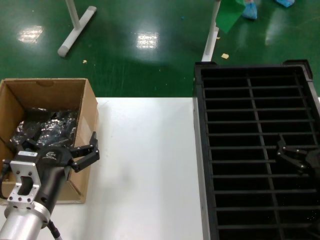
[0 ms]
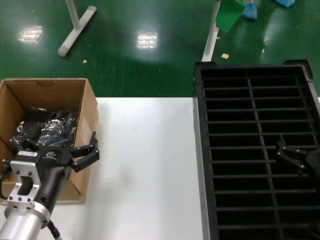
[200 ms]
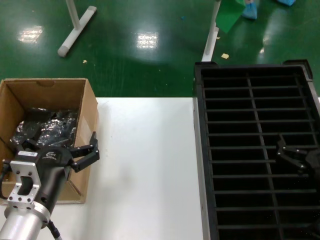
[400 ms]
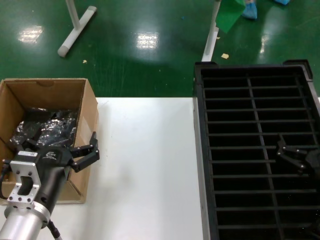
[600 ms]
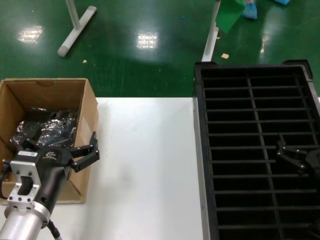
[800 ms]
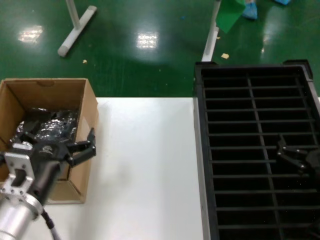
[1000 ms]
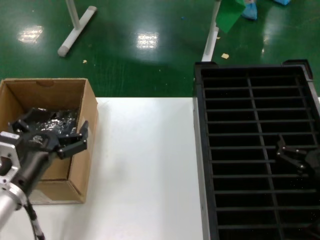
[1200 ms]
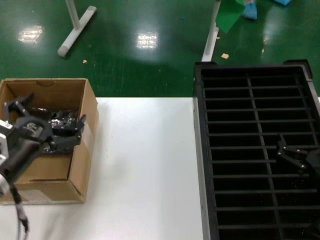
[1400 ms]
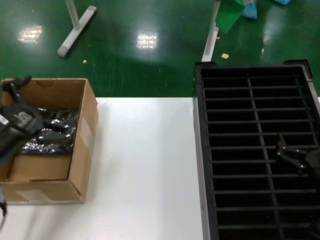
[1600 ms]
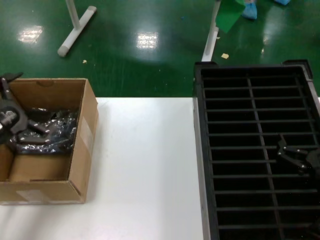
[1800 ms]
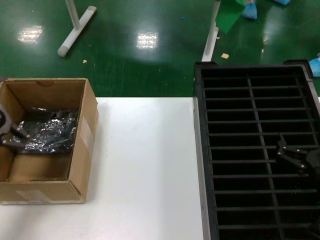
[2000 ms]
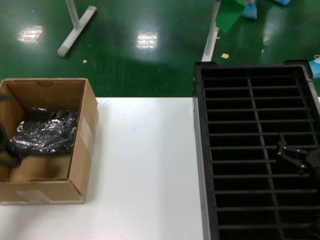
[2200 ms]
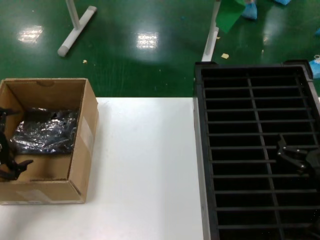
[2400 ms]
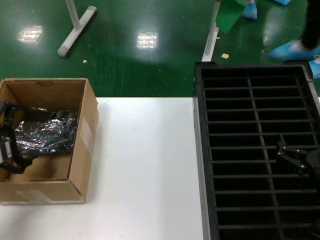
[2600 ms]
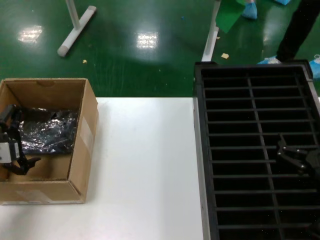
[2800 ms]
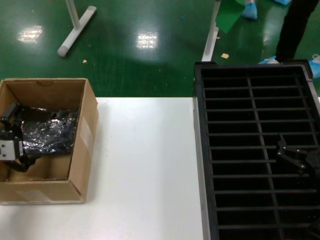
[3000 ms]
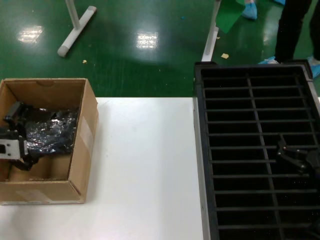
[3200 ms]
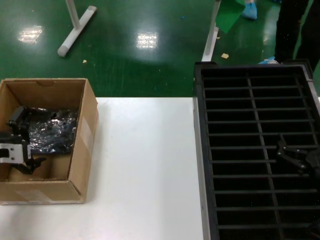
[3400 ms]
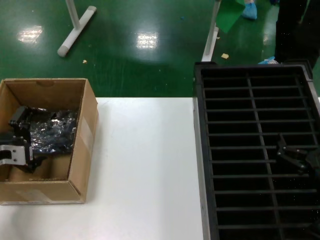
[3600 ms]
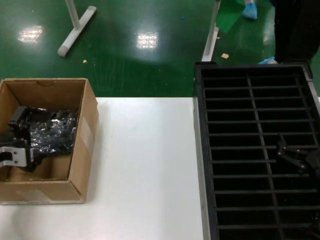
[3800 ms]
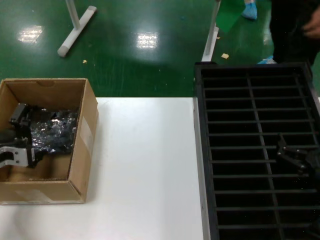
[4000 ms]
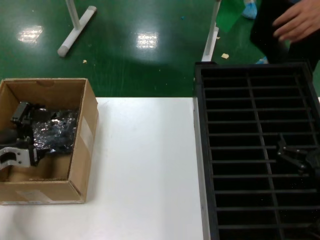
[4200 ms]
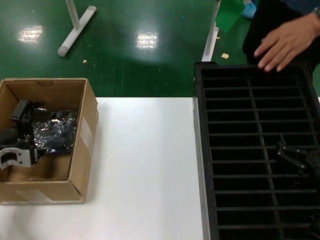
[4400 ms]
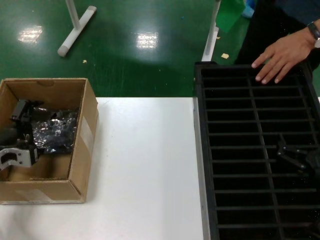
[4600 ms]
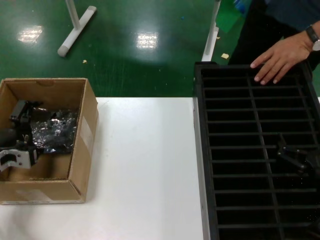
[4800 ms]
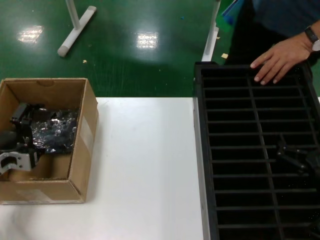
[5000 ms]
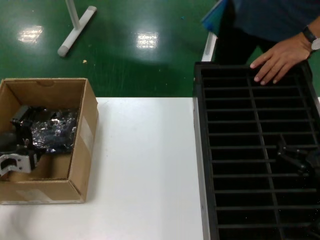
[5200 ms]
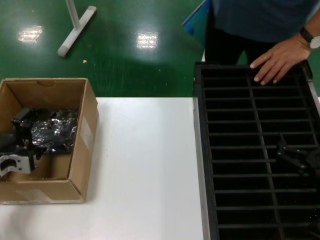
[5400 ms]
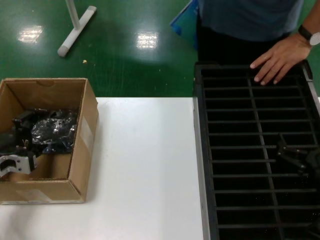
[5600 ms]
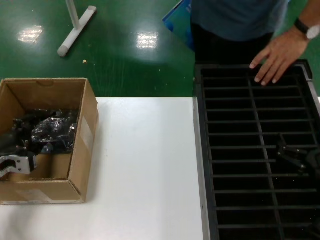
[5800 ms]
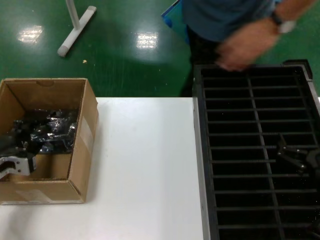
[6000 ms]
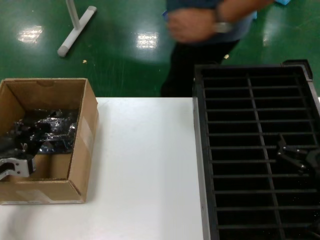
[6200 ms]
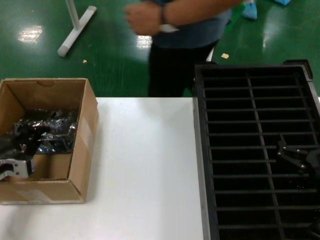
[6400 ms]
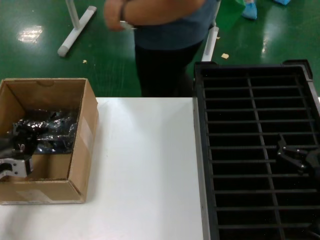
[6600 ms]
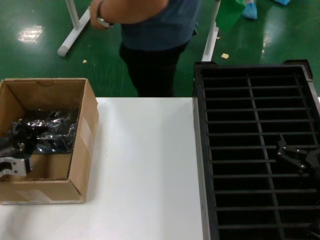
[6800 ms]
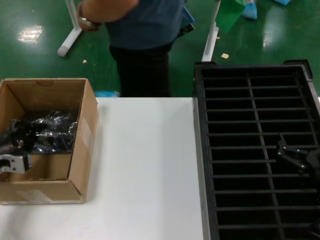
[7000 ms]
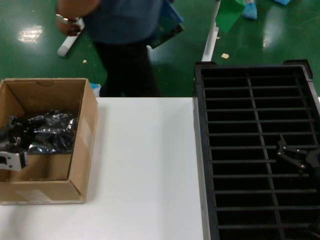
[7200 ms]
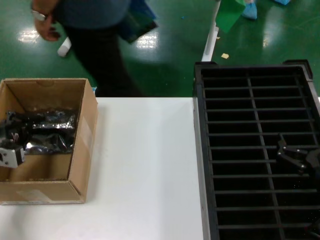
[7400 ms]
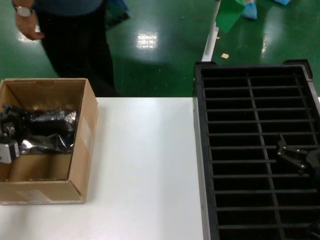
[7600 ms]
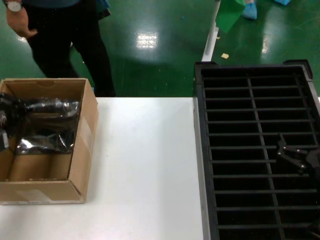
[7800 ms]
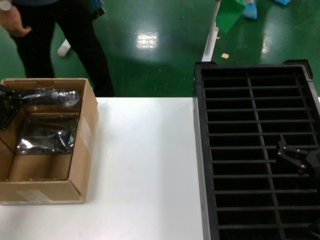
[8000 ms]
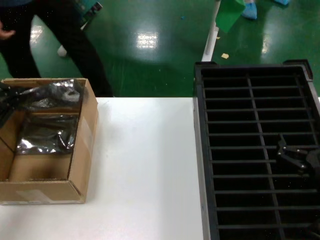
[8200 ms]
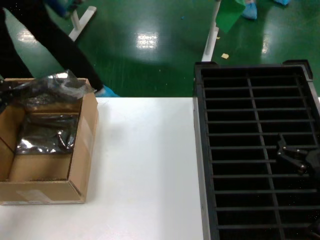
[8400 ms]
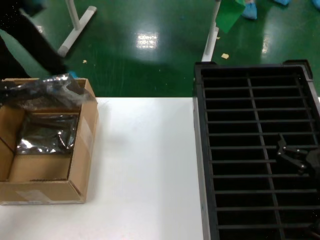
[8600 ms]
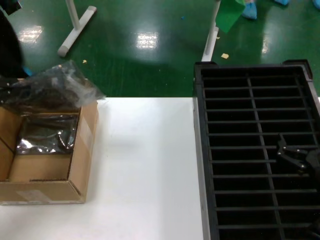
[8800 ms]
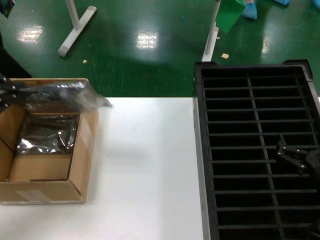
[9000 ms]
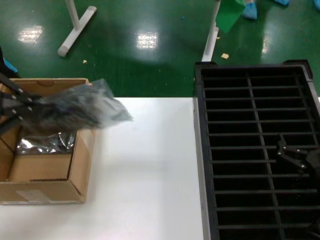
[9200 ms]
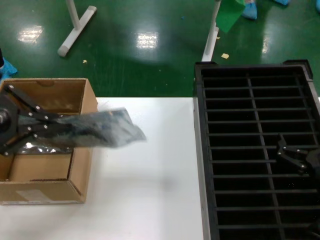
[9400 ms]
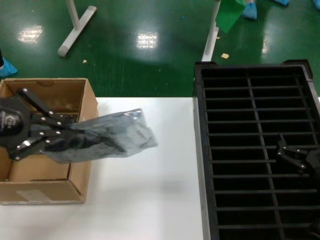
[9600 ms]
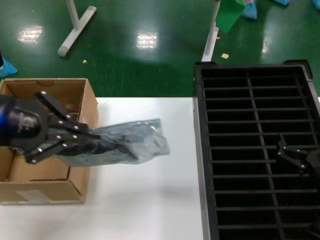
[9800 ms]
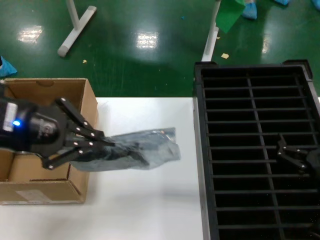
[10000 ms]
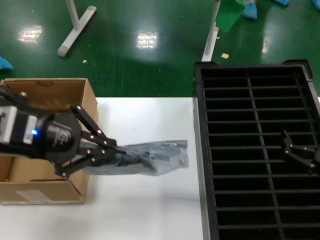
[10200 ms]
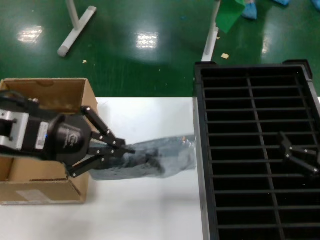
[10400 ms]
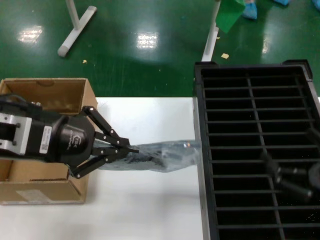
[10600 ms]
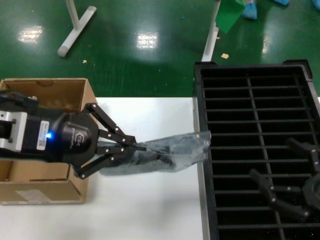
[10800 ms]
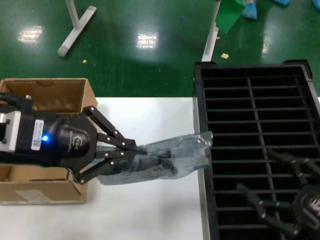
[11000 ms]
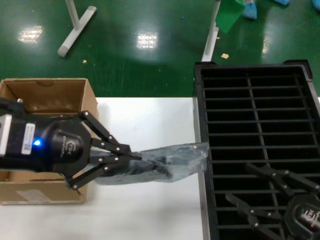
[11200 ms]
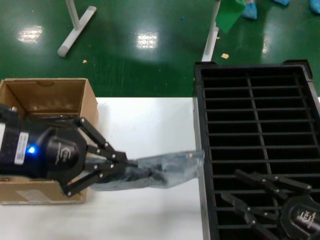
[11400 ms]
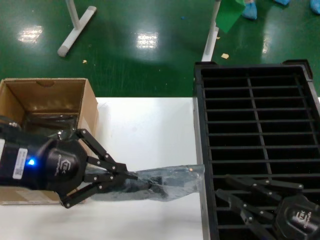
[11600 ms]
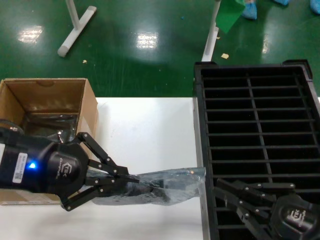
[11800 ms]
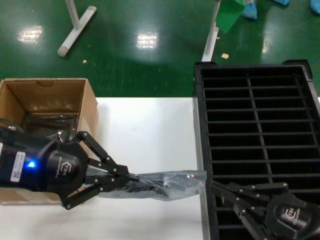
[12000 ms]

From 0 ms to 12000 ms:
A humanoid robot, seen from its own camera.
Task of the whole recording: take out graphics card from box remove packaging put into black container.
Step, from 0 ms to 6800 ms: Grasp the bag.
Step, from 7000 ms to 10200 ms: Lift the bag.
From 0 ms to 1600 ms: The left hand heads to the left and upward, covering about 15 cm.
From 1600 ms to 3000 ms: The left hand is displaced forward and to the left by about 10 cm.
From 3000 ms to 4400 ms: The left hand ends up about 5 cm from where it was.
From 4400 ms to 6000 ms: The hands move only a little.
From 6000 ms to 7600 ms: The left hand shifts about 5 cm upward.
From 7600 ms to 9000 ms: The left hand is displaced upward and backward by some 20 cm.
From 9000 ms to 10400 ms: The right hand moves some 5 cm. Meanwhile the left hand heads to the right, covering approximately 15 cm.

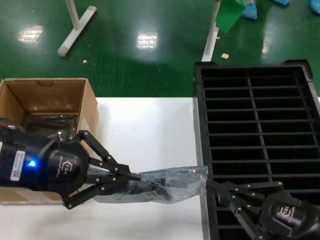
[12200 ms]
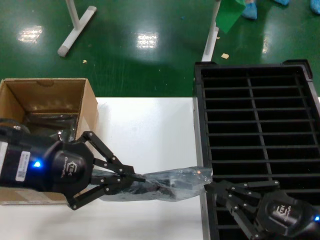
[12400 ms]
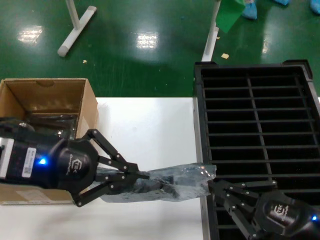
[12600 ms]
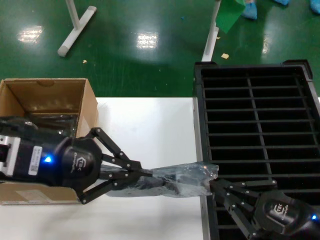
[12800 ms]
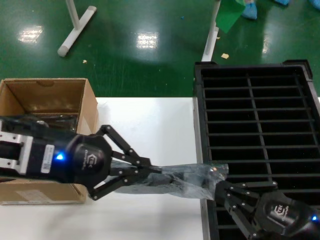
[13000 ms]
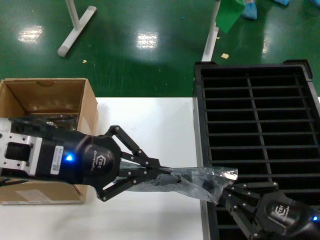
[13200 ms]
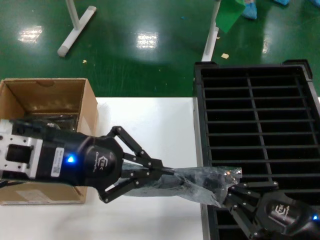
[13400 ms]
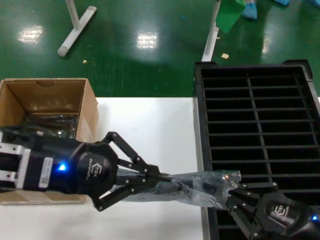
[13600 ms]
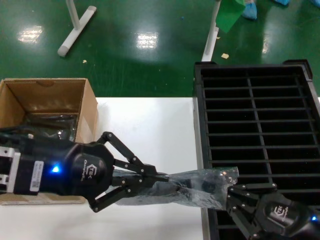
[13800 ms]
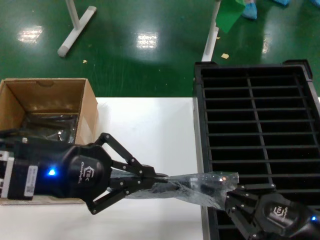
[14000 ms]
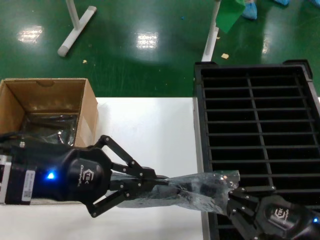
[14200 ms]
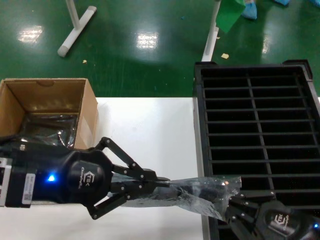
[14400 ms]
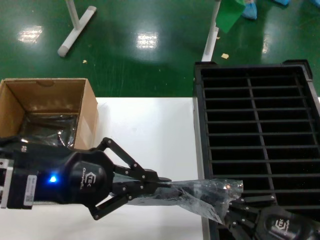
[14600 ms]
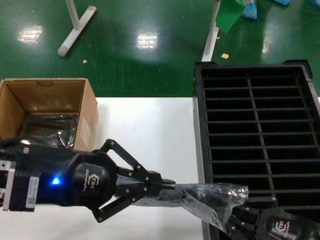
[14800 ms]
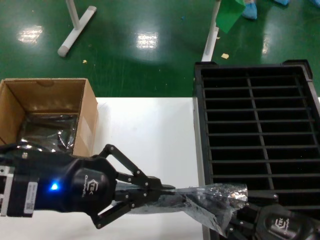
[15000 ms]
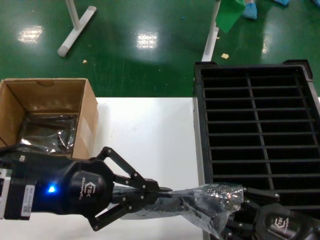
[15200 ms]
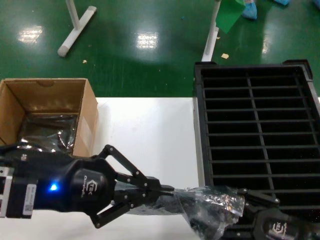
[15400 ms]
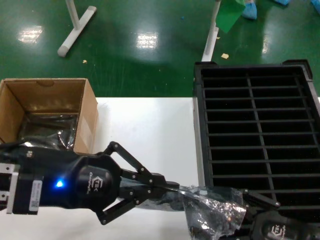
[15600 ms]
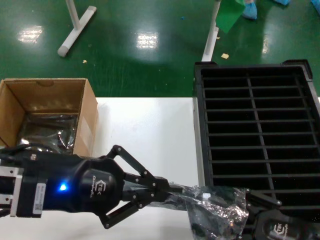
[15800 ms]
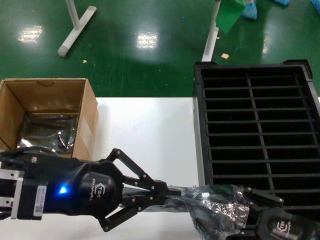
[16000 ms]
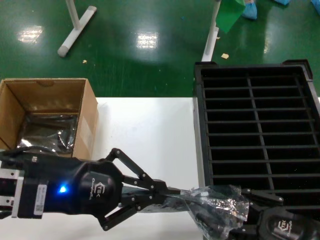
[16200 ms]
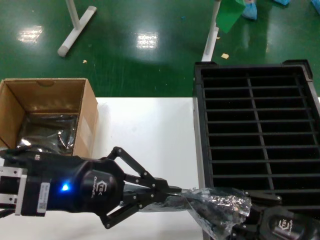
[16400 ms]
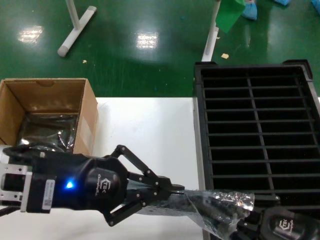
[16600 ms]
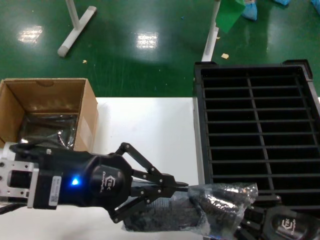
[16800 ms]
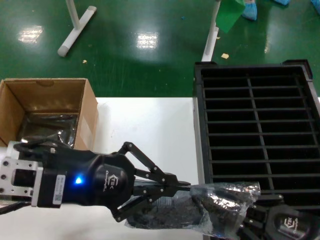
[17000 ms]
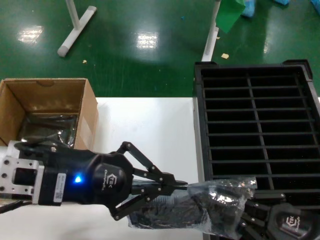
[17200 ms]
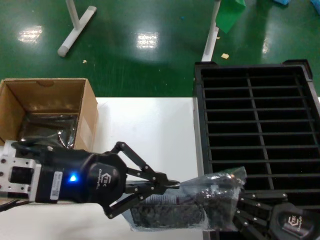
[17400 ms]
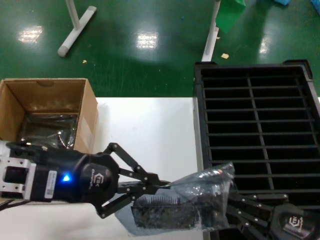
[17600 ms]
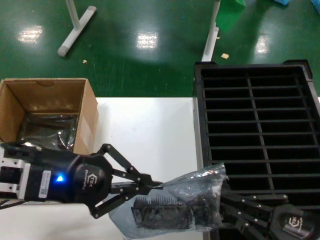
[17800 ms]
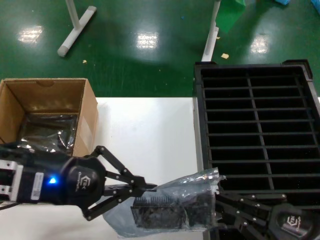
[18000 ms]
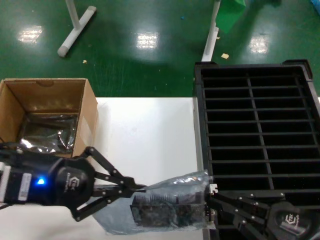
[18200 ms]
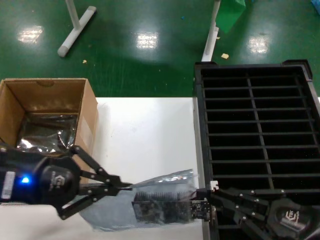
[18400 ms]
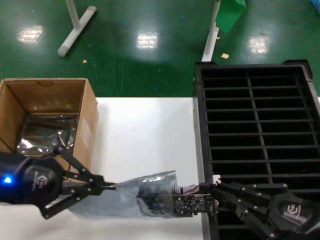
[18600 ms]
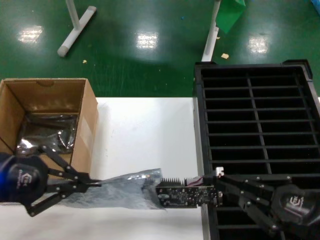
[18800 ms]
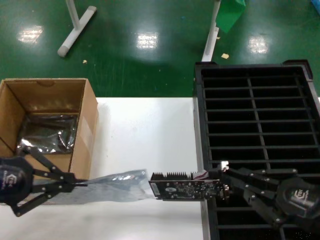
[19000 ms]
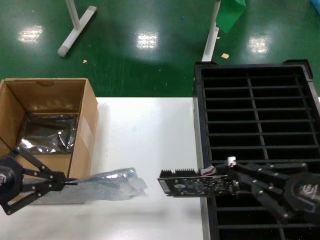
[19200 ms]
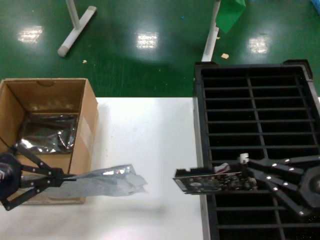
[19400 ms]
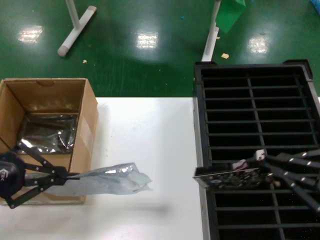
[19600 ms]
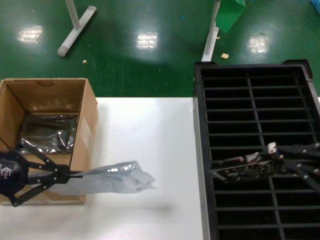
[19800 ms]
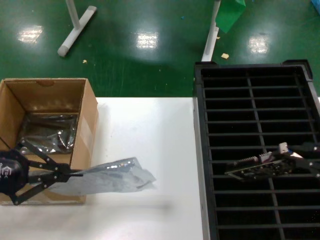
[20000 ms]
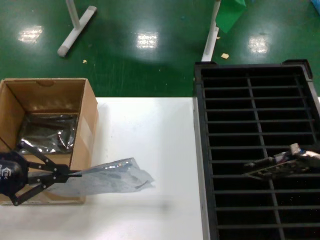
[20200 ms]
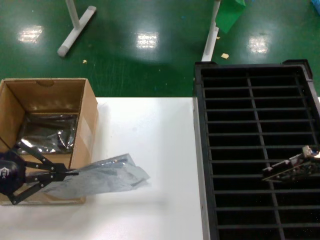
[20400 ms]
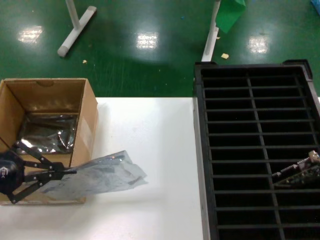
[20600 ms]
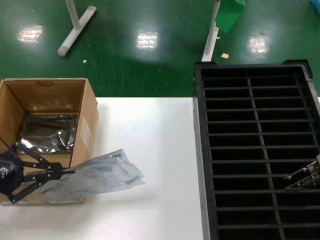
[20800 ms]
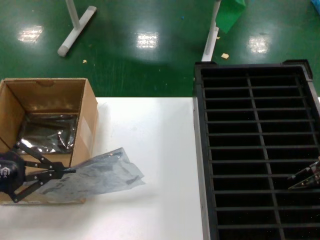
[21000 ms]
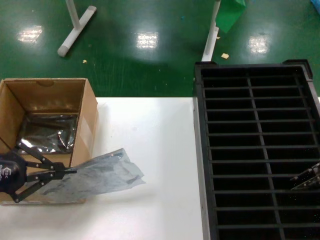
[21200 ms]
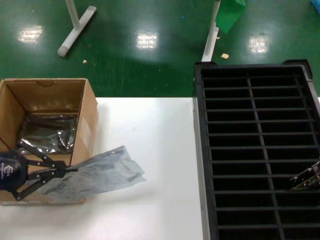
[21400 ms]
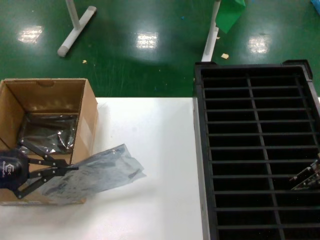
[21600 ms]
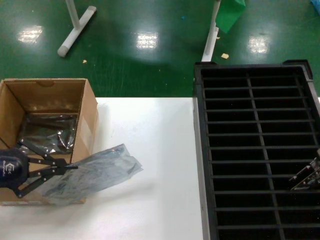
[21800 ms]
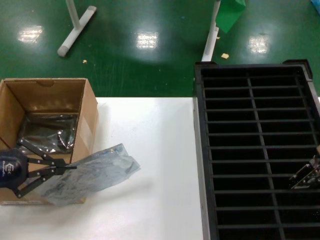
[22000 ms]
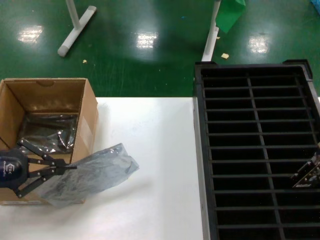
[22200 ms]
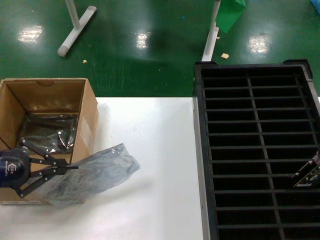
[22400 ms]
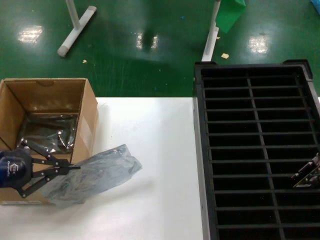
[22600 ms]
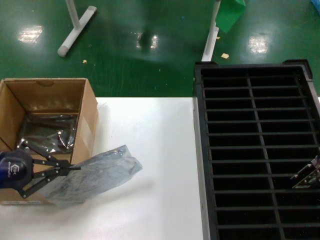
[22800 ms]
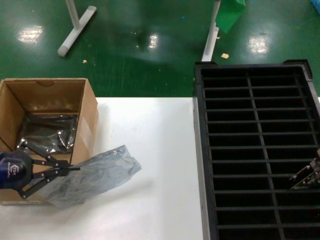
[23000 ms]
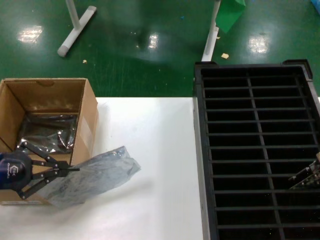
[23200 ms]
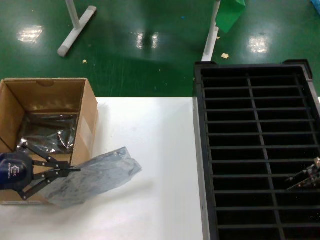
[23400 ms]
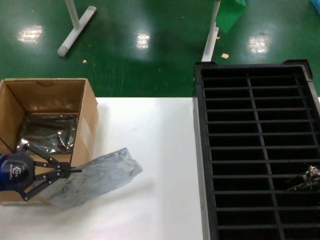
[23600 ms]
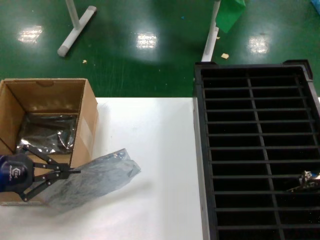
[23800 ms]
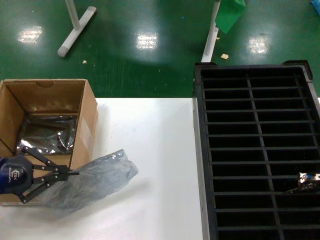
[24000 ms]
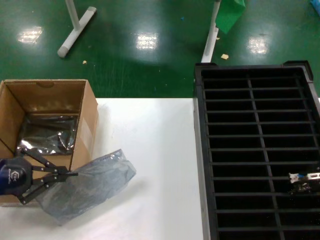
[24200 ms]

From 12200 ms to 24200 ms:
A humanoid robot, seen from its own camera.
Task of the whole recording: take out graphics card from box remove packaging put into black container.
Step, from 12200 ms to 19000 ms: Take out the hard disk of the bag.
From 12200 ms to 13800 ms: The hands move only a little.
From 15200 ms to 18200 ms: The hands make only small movements.
From 18200 ms to 19800 ms: The left hand goes some 15 cm to the left. Meanwhile the right hand travels upward by some 15 cm.
From 19800 ms to 21200 ms: The left hand ends up some 5 cm from where it was, while the right hand heads upward, covering some 5 cm.
From 21200 ms to 22600 ms: The hands move only a little.
From 22600 ms to 24200 ms: The right hand shifts roughly 5 cm downward.
